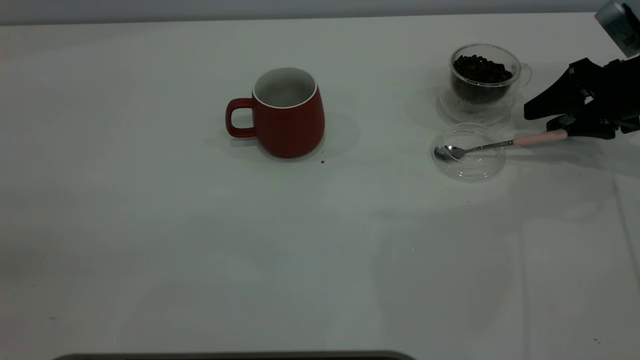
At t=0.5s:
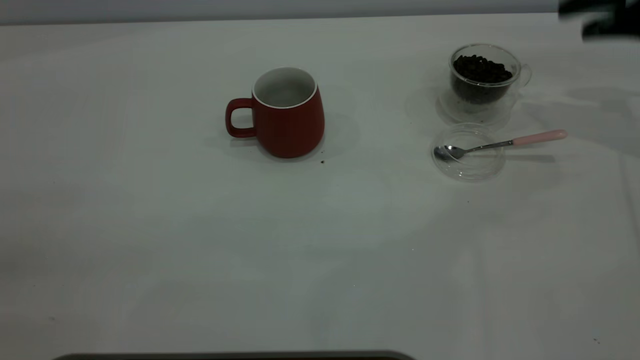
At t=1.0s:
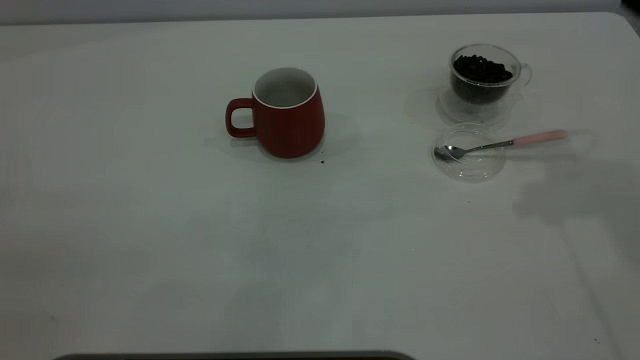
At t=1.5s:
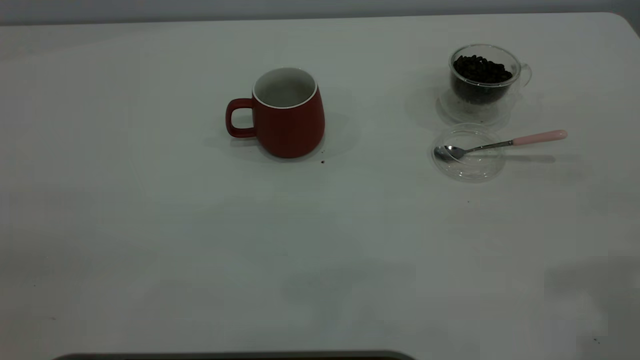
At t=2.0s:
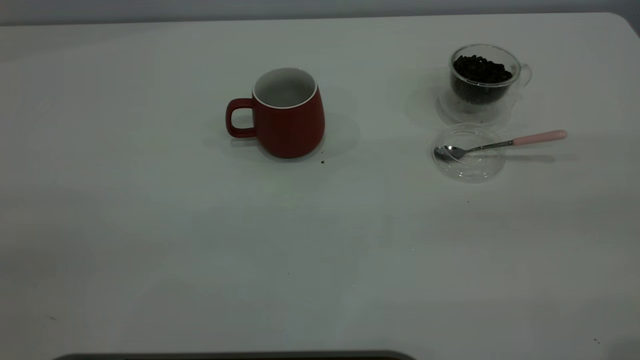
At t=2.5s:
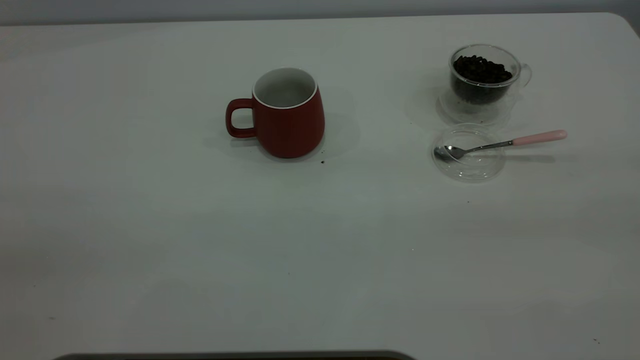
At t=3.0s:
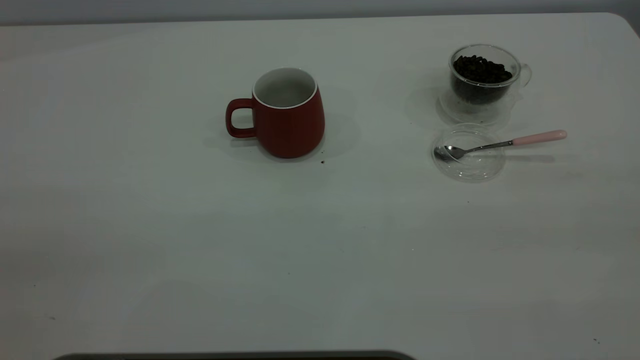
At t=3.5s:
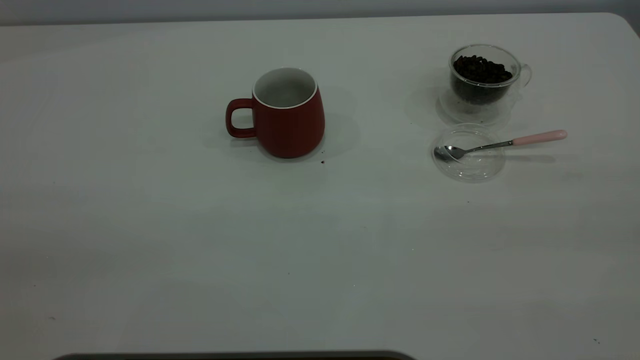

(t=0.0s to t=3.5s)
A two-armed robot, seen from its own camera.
Task of the whole recording: the left gripper place the red cup in the center of the table, the right gripper take the pink spoon from the cup lid and scoop out the coffee beans from the coffee cup and put them into the red cup, the right gripper put the spoon back into the cup lid.
t=0.0s - t=2.0s: The right gripper moves backward and upward, roughly 40 cm.
